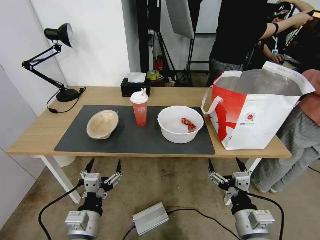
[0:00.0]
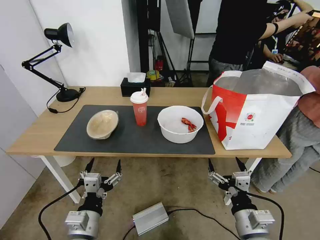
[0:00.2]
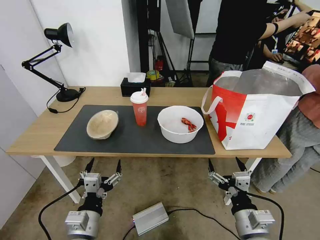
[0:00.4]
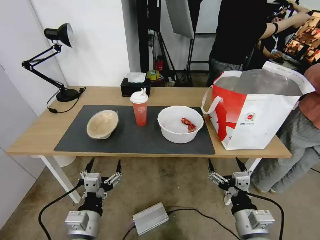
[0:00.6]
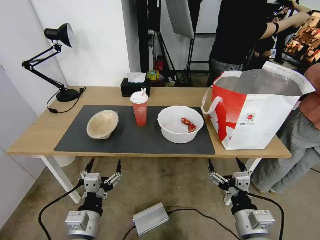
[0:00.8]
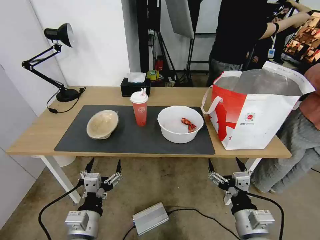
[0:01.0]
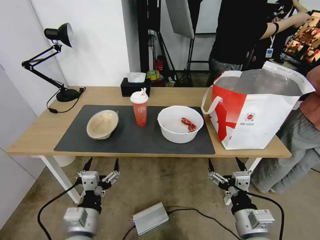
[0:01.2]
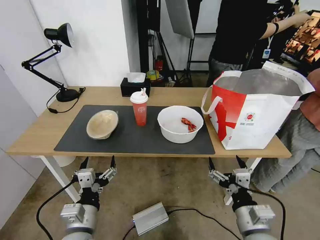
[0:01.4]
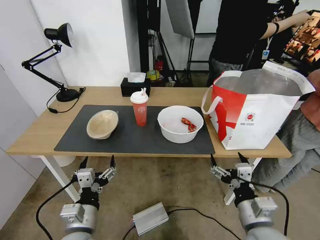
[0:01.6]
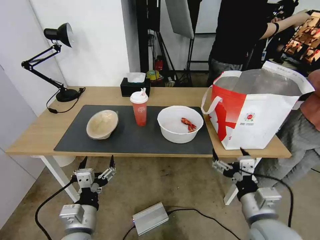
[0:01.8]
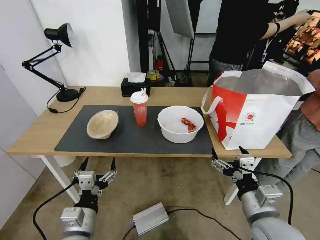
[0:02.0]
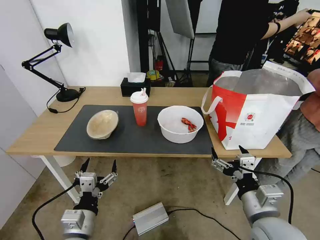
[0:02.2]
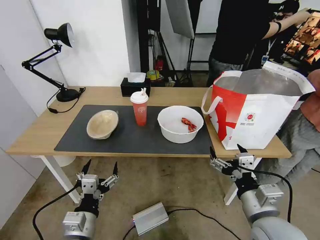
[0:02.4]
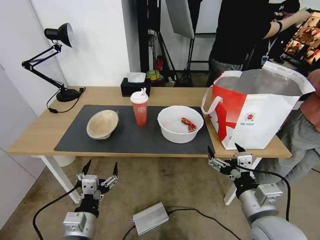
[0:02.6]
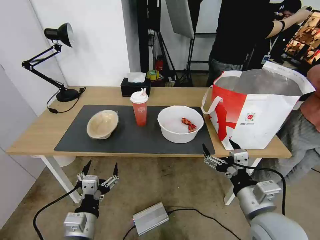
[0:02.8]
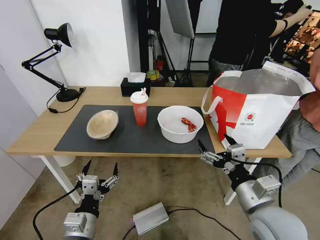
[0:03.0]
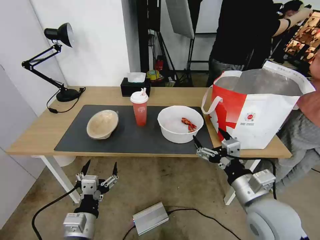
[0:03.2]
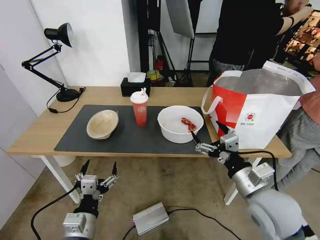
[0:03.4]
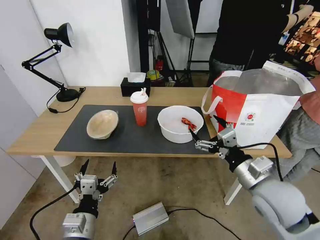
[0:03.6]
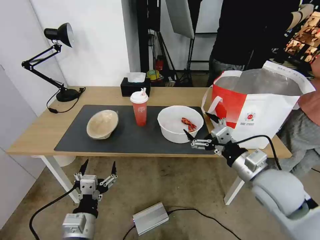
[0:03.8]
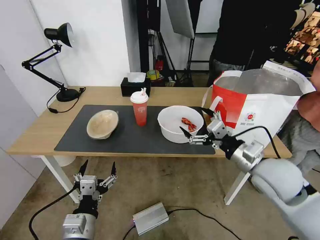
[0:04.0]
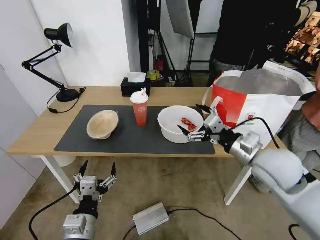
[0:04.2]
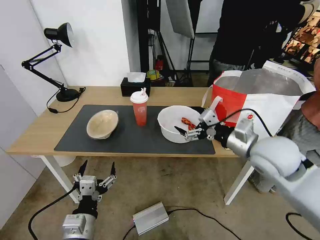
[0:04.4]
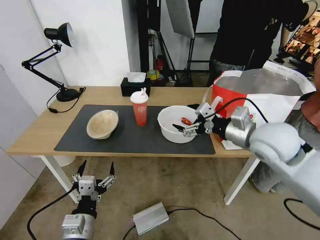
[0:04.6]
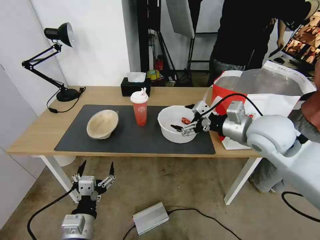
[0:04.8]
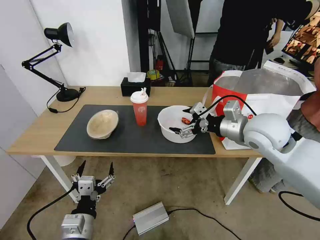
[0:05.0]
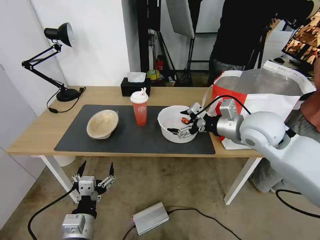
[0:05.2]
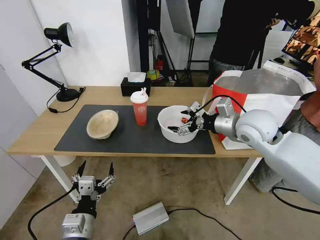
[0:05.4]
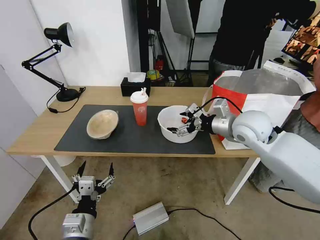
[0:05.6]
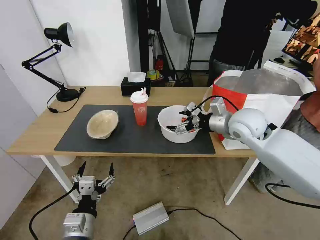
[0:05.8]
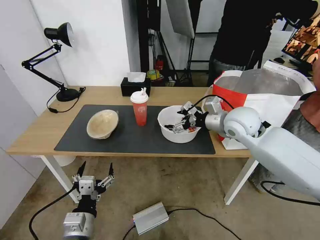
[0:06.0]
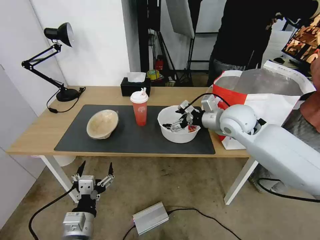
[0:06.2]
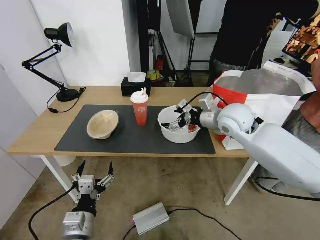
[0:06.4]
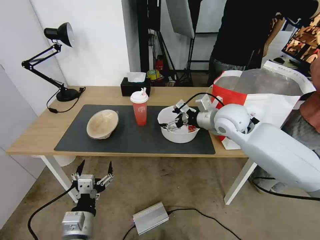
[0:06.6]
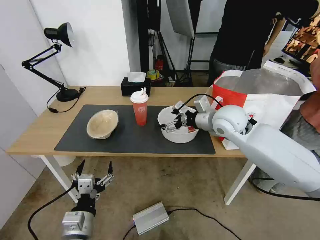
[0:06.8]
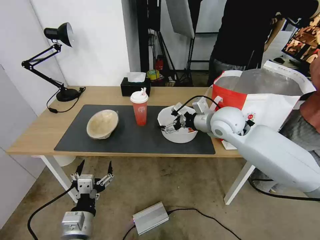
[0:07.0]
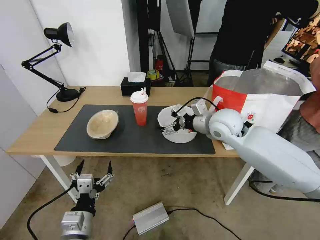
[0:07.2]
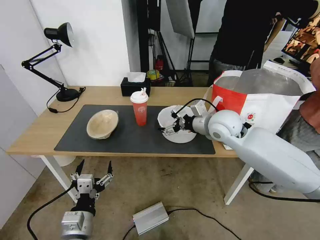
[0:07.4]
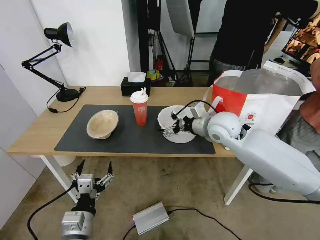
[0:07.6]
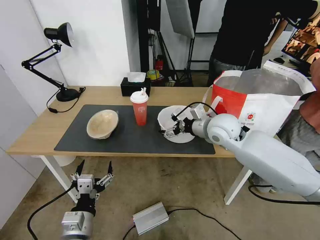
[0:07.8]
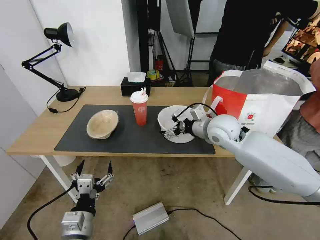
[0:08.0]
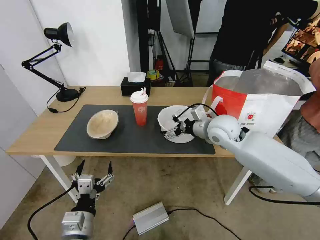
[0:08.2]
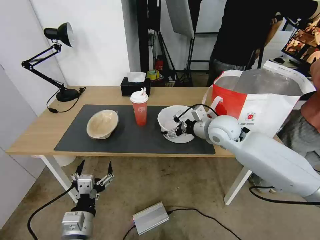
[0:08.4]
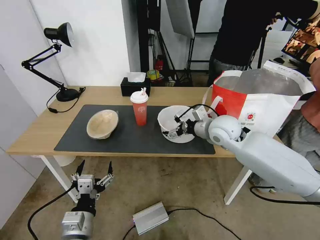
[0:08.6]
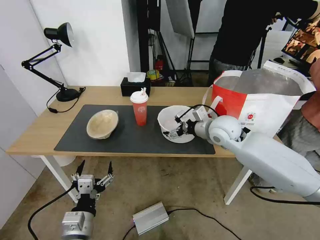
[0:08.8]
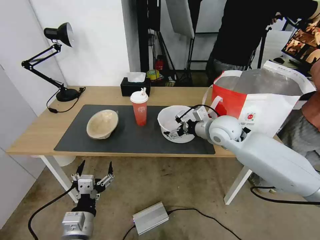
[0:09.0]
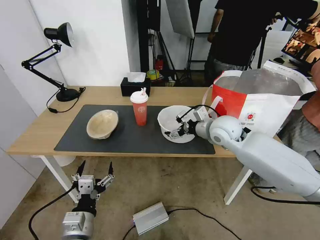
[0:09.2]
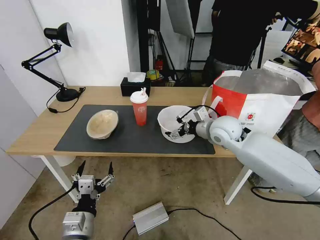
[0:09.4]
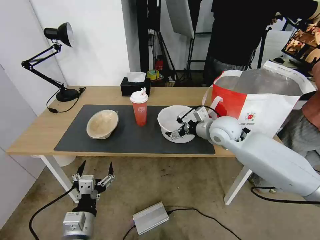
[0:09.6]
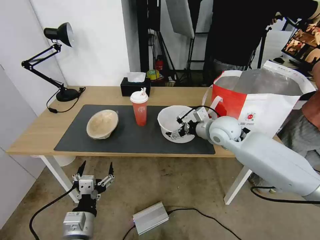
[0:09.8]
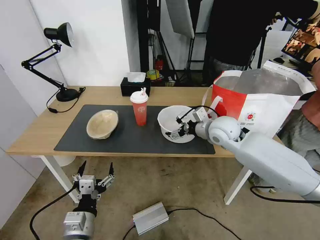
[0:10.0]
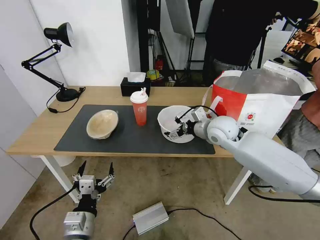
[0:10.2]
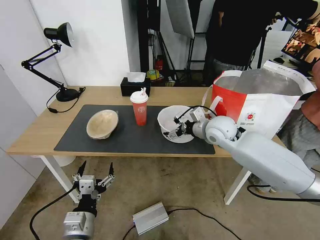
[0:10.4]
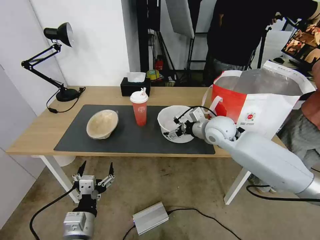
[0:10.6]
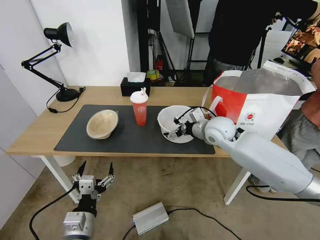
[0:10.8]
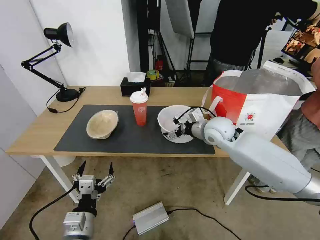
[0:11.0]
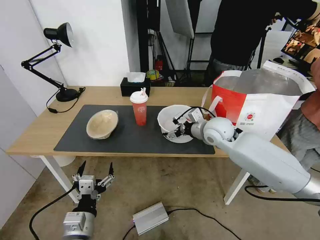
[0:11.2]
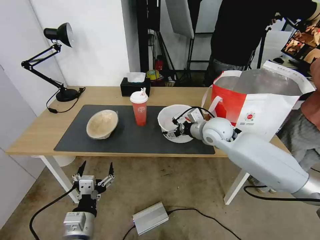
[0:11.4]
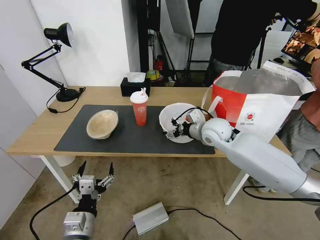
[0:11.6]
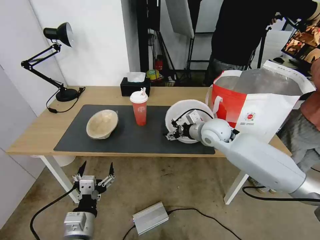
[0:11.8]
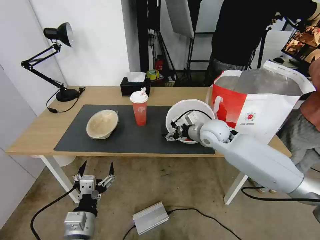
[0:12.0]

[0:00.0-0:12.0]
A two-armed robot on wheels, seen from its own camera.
Task of the whole recording: Pick up the trash from the table and place it into the takeout bag.
0:01.6 to 0:03.0: The grippers stay close to where they were, moving slightly.
0:03.0 to 0:04.4: The right gripper travels forward and upward by approximately 15 cm.
0:04.4 to 0:06.0: The right gripper goes roughly 10 cm forward.
0:06.0 to 0:07.6: The right gripper shifts by some 5 cm.
0:07.6 to 0:12.0: The grippers move only a little.

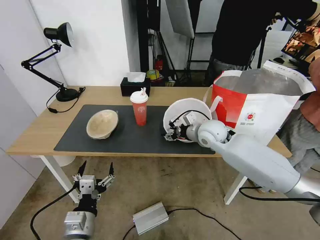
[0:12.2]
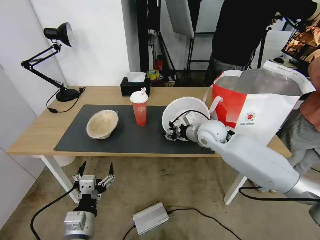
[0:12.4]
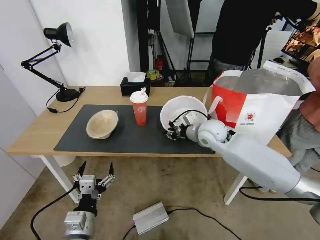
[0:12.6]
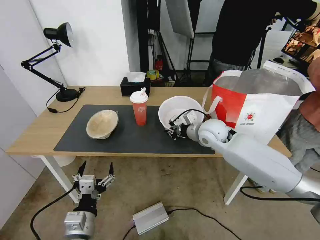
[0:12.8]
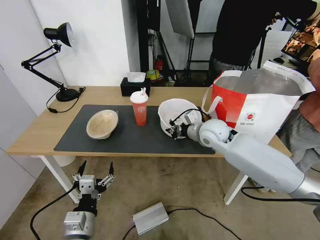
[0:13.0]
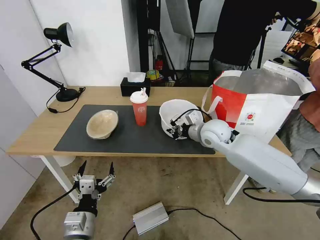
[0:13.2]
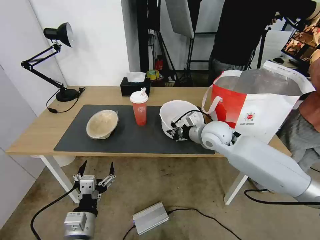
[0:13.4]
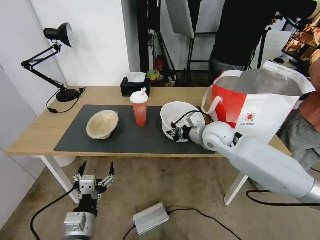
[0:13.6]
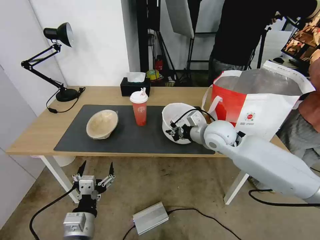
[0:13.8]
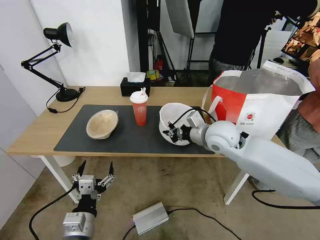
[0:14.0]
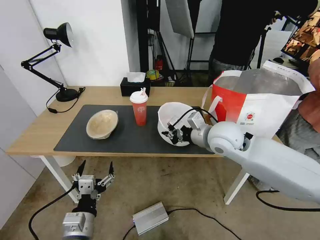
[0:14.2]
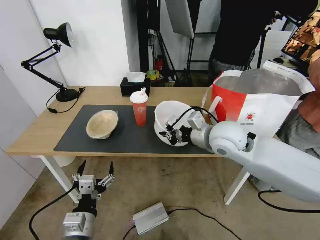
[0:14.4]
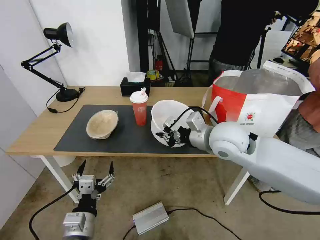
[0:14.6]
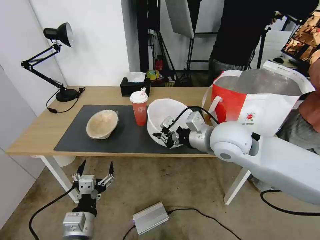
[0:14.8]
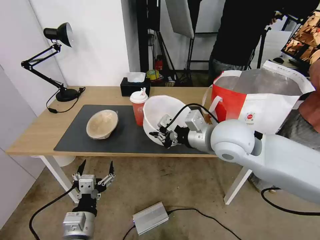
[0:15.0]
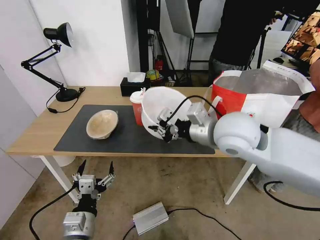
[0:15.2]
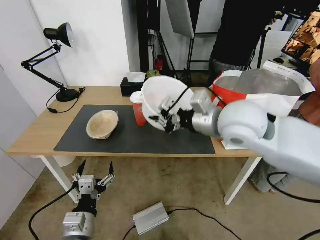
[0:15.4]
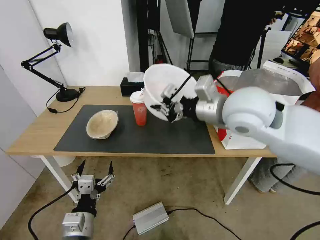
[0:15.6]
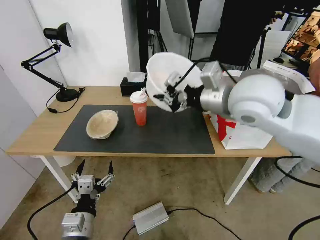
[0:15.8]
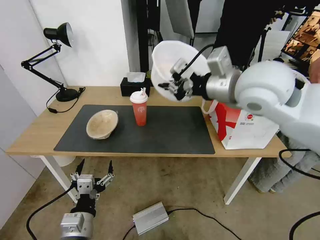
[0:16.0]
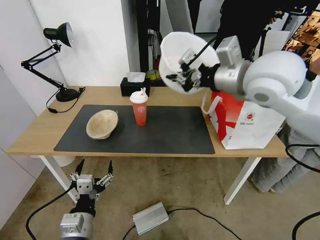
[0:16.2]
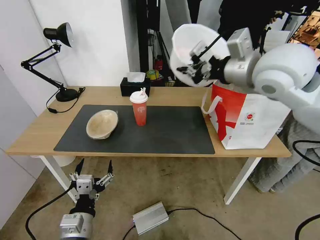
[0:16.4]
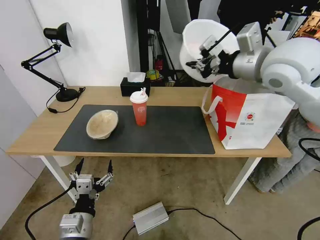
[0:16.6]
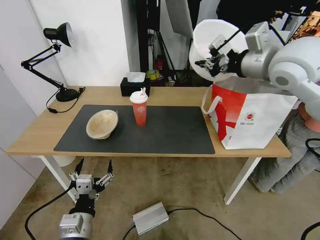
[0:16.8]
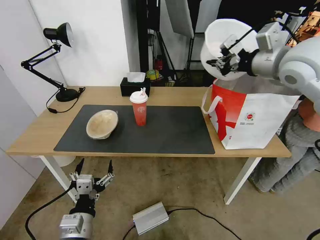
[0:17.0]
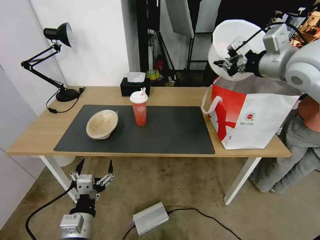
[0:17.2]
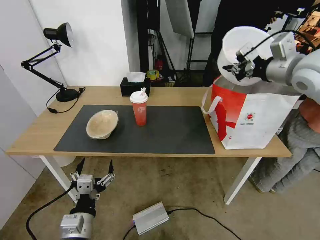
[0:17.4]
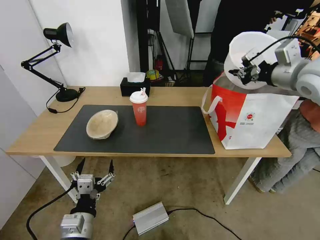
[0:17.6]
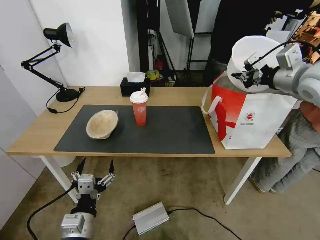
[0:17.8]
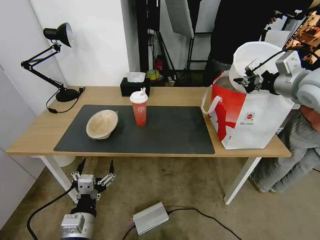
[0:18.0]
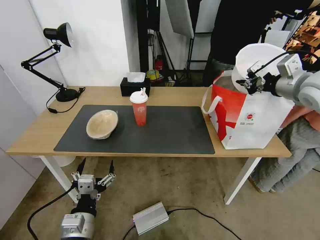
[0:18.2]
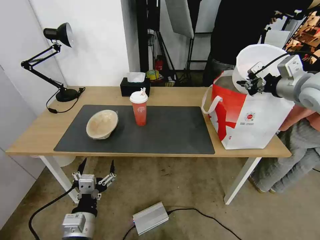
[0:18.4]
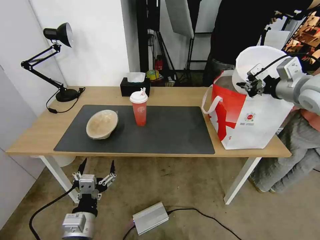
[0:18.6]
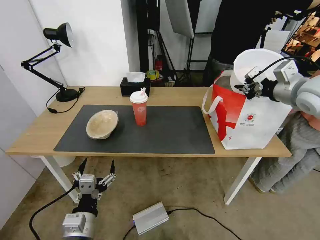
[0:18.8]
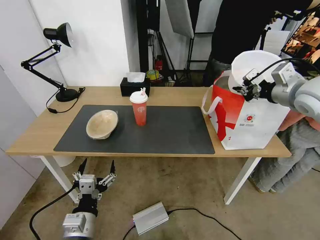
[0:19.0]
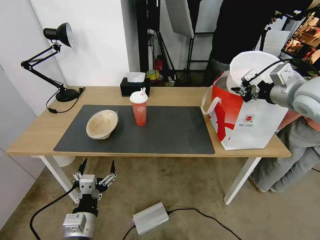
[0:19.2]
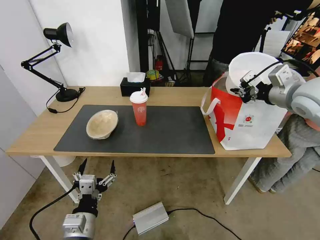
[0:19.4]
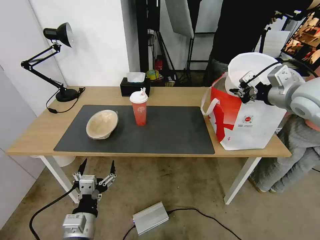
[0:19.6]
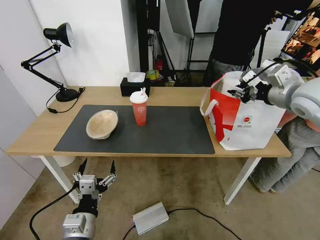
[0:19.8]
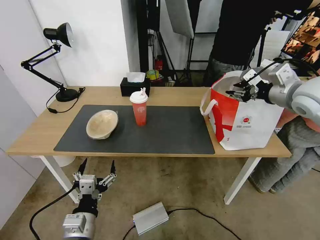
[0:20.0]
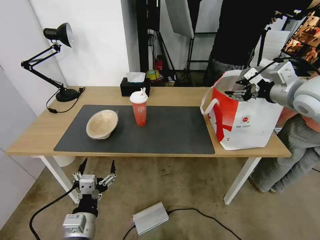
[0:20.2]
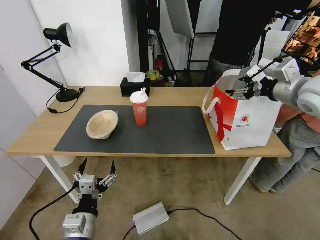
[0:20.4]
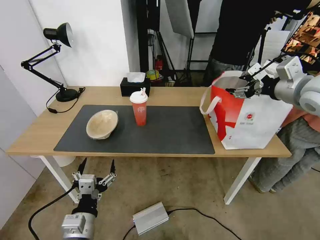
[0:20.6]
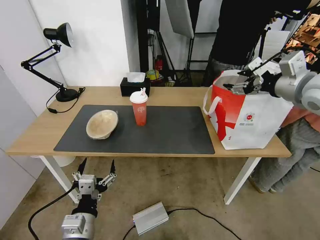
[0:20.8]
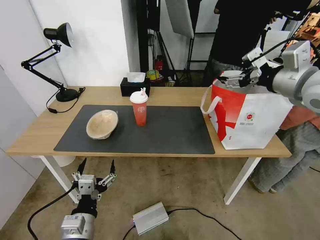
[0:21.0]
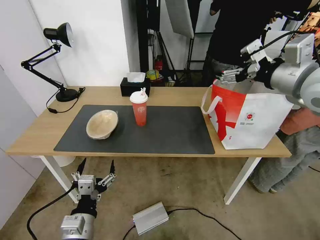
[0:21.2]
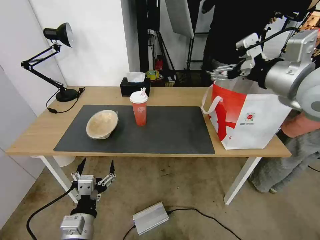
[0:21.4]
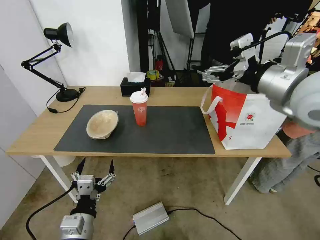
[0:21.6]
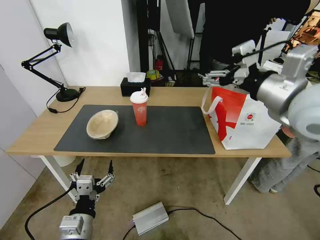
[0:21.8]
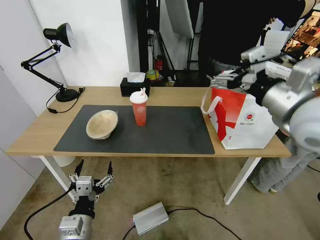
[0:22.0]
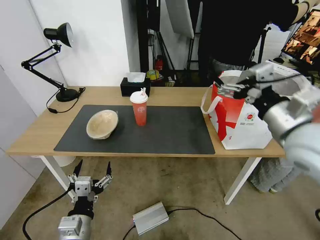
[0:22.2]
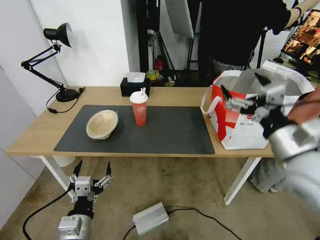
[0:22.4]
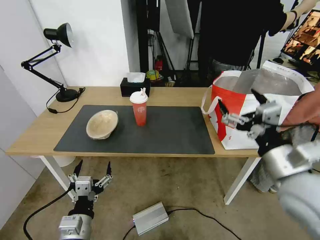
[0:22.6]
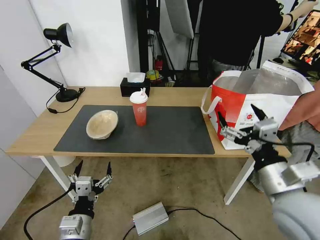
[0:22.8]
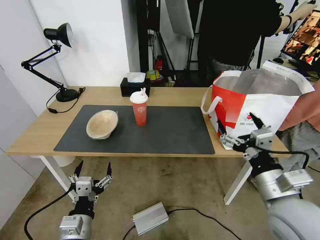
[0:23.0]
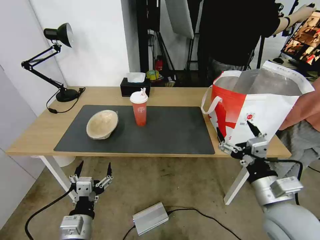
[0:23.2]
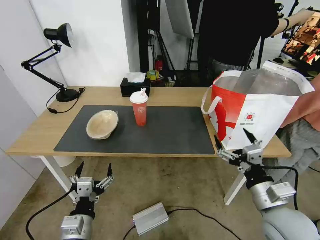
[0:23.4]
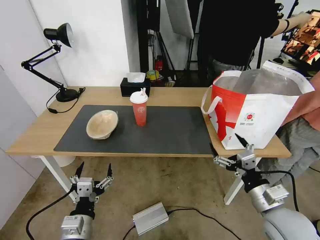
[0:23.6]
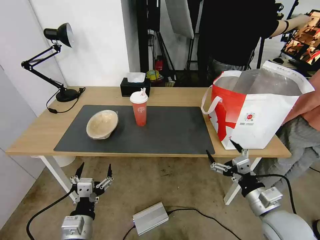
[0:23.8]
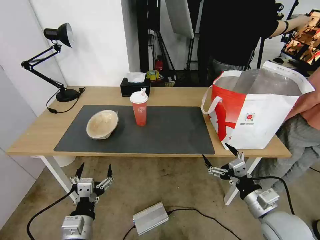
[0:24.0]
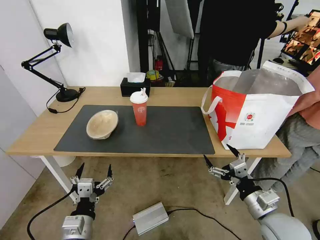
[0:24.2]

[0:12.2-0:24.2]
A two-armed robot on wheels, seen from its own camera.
Task of the whole recording: Pick up the trash from the table and place it into the takeout bag.
0:12.2 to 0:13.8: The right gripper closes up.
0:13.8 to 0:15.2: The right gripper shifts approximately 15 cm upward and backward.
0:15.2 to 0:16.6: The right gripper goes some 15 cm upward, to the right and forward.
0:16.6 to 0:18.2: The right gripper is displaced to the right and downward by some 15 cm.
0:18.2 to 0:19.8: The grippers stay close to where they were, moving slightly.
0:19.8 to 0:21.2: The right gripper heads upward, covering some 5 cm, and opens up.
0:21.2 to 0:22.6: The right gripper is displaced downward and backward by roughly 20 cm.
0:22.6 to 0:24.2: The right gripper goes approximately 15 cm downward.
